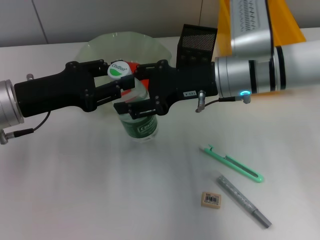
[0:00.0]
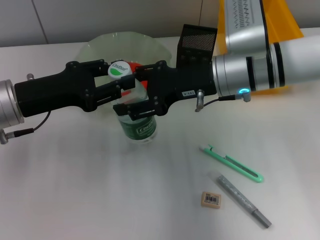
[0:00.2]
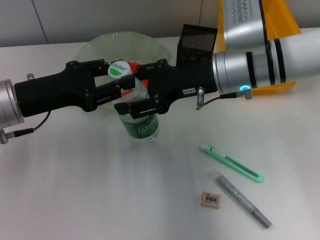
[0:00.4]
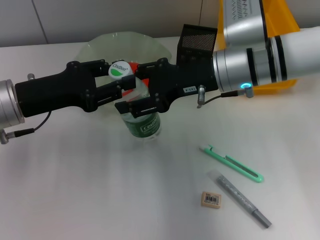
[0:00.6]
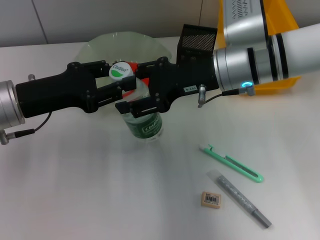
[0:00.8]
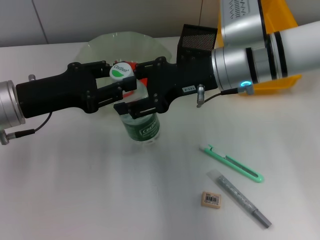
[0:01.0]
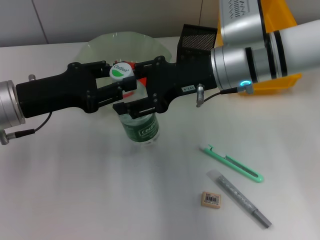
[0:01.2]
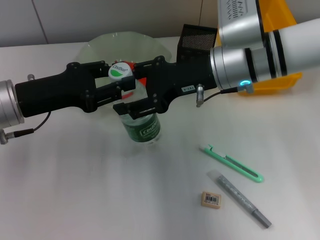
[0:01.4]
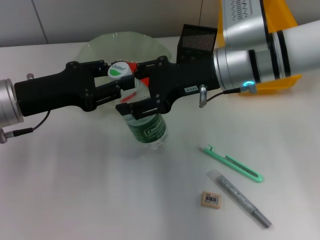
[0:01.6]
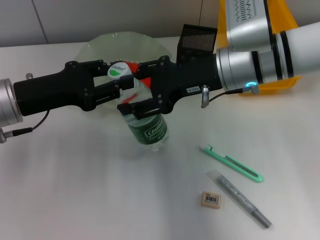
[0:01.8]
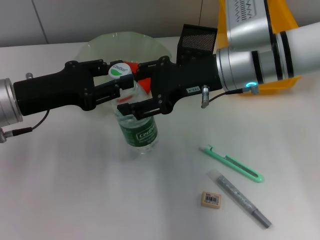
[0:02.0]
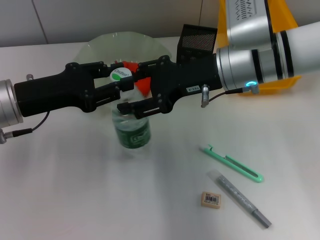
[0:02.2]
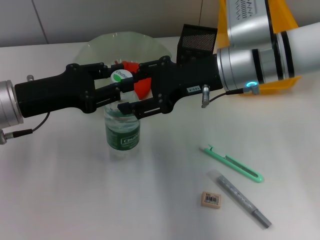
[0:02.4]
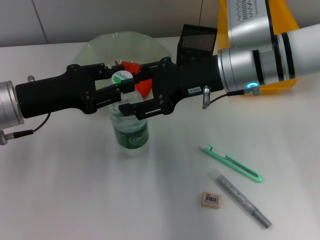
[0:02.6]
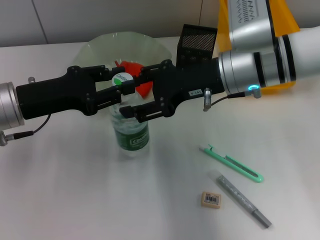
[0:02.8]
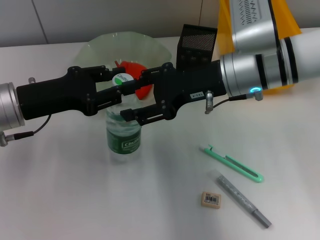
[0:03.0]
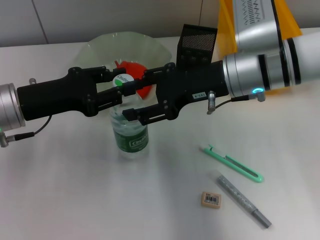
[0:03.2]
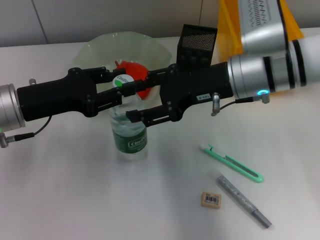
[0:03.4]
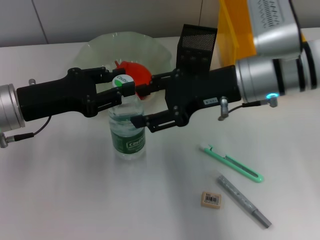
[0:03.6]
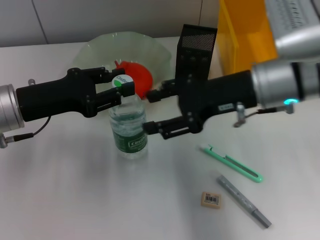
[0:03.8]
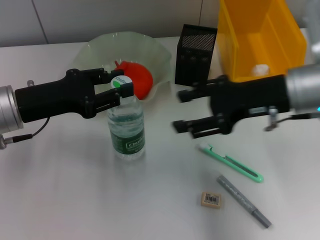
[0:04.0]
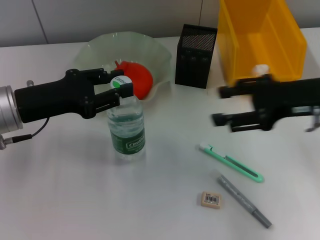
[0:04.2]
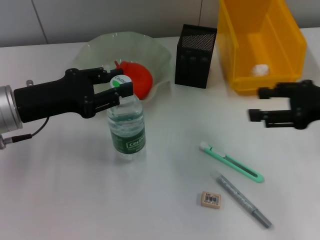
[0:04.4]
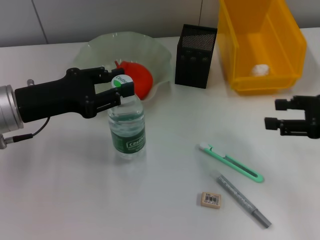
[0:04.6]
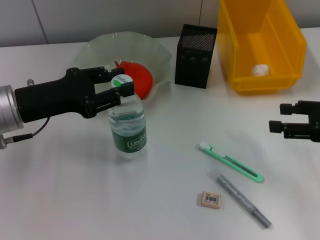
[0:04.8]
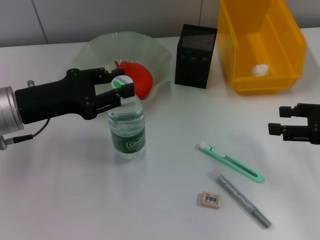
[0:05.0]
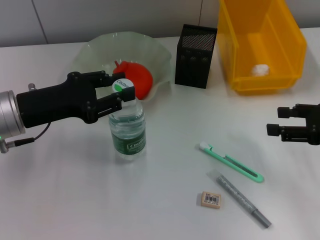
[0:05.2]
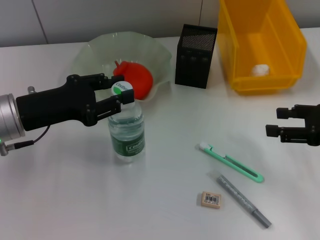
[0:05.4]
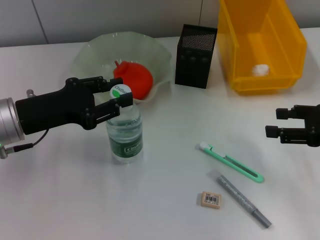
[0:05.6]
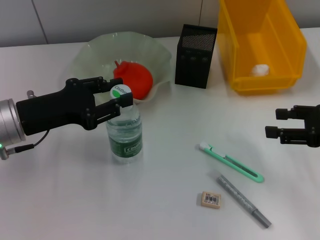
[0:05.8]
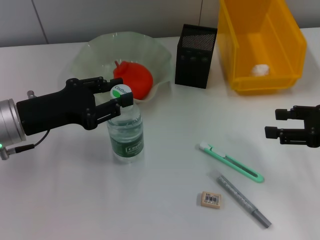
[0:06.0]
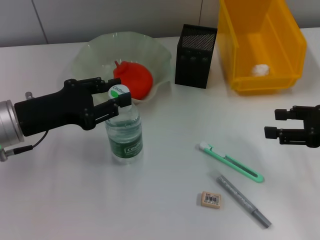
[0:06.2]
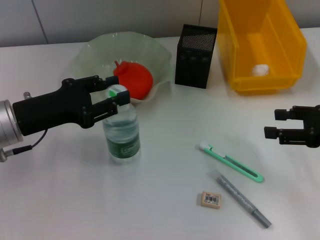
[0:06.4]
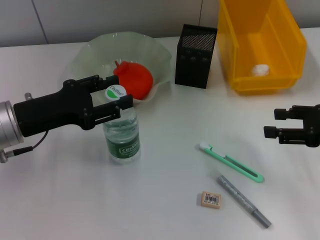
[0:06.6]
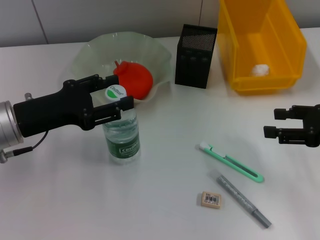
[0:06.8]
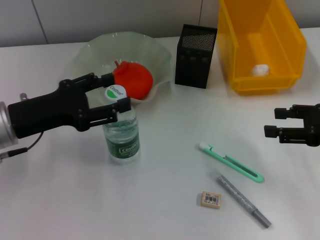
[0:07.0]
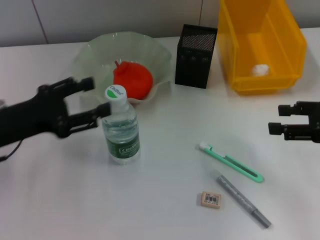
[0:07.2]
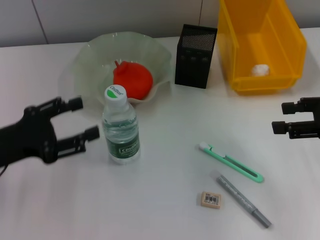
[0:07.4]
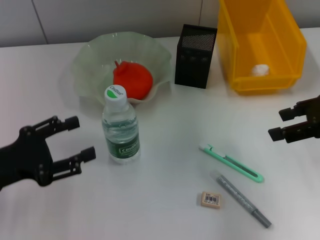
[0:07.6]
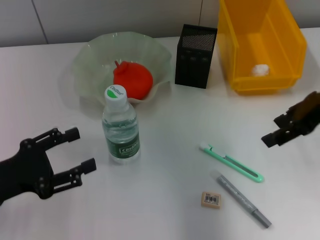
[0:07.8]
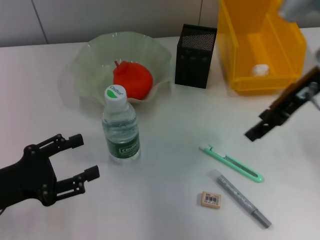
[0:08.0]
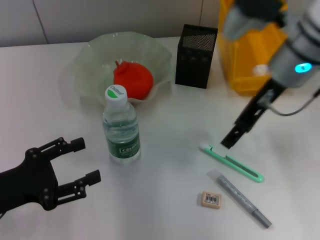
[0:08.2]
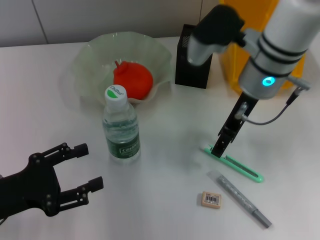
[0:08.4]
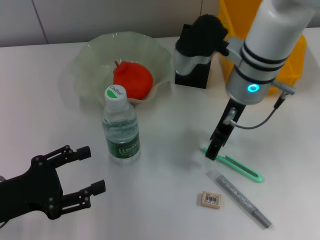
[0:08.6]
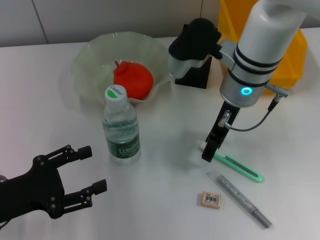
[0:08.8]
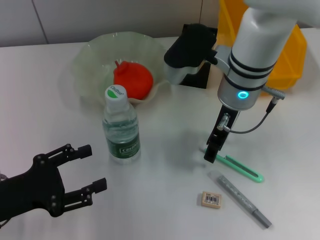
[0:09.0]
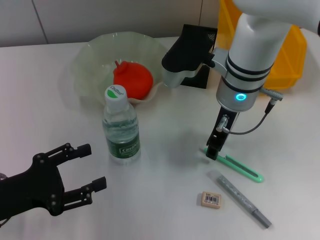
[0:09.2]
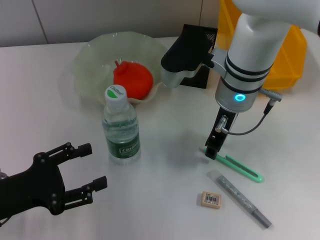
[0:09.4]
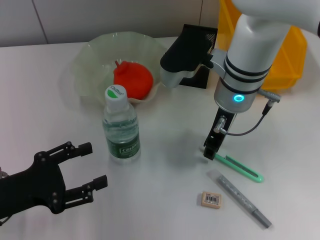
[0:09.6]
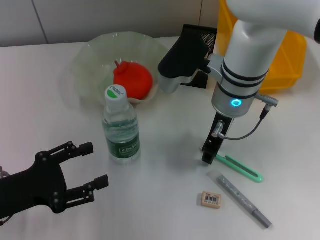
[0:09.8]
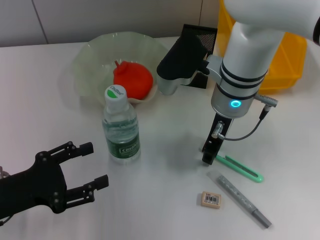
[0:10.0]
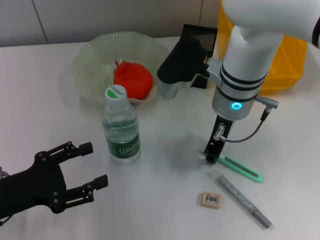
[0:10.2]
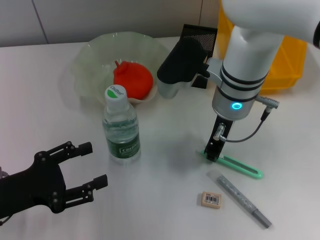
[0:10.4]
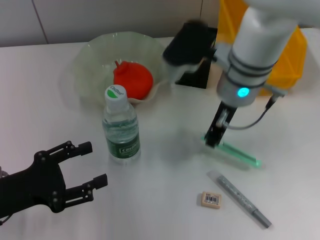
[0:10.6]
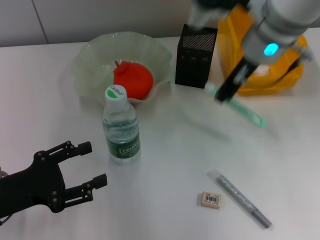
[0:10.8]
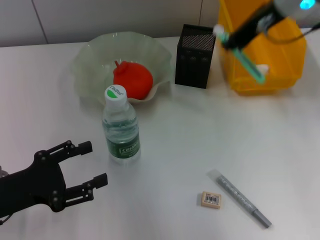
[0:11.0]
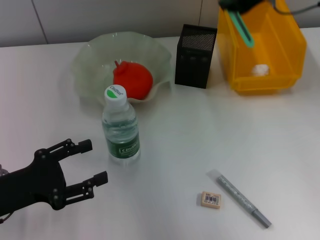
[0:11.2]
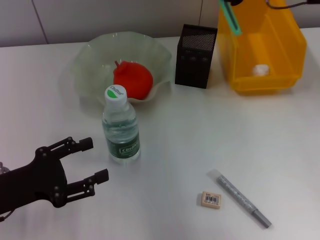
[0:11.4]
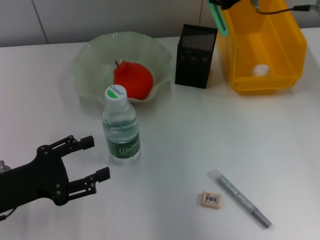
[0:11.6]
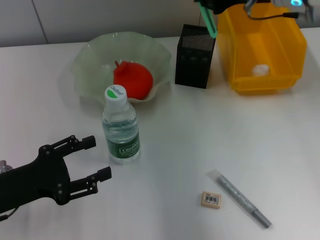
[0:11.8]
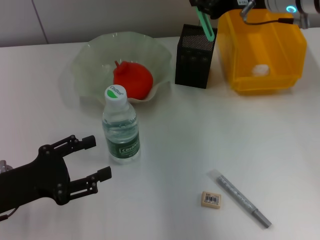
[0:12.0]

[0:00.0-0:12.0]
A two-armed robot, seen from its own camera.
Step, 0.0 to 3.0 s: Pass the water bottle from the right hand to the left hand.
Step, 3.2 to 7.2 s: Place the water bottle on the table with the left hand.
Step, 7.4 to 10.2 s: Grab the blue utility knife with the right hand.
0.0 to 1.6 s: There are only small adjustments of the grippers.
1.6 to 3.0 s: Both grippers stay about where they are.
3.0 to 4.4 s: The right gripper shifts some 20 cm to the right and backward.
4.4 to 6.0 s: The grippers stay close to where they were, moving slightly.
6.0 to 7.6 s: The right gripper travels upward by about 10 cm. The left gripper is displaced backward and to the left by some 10 cm, and opens up.
7.6 to 9.0 s: The right gripper goes some 20 cm to the left and forward.
9.0 to 10.4 s: The right gripper closes up.
10.4 to 12.0 s: The right gripper shifts some 15 cm to the right, upward and forward.

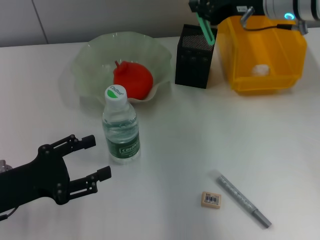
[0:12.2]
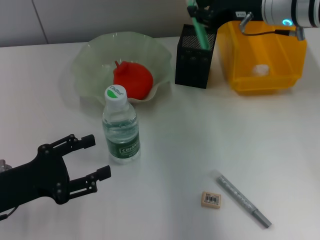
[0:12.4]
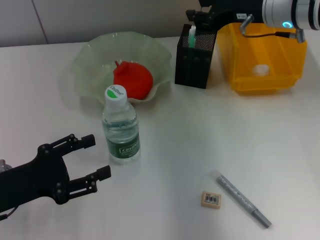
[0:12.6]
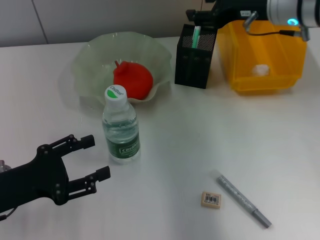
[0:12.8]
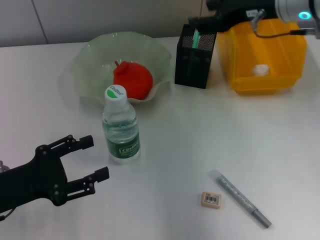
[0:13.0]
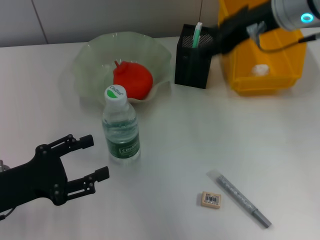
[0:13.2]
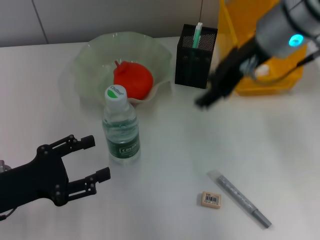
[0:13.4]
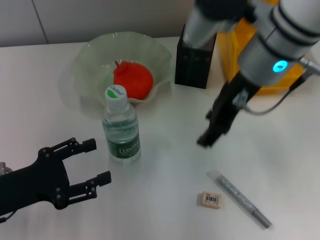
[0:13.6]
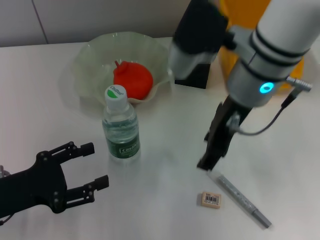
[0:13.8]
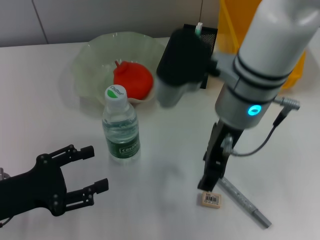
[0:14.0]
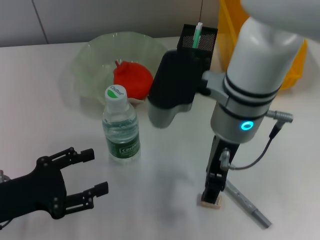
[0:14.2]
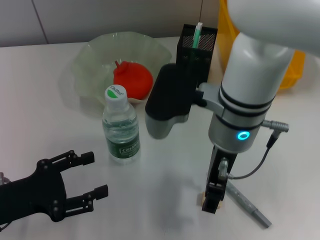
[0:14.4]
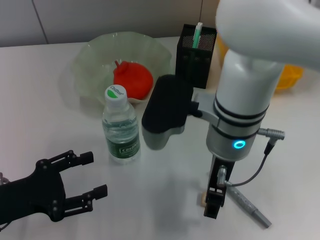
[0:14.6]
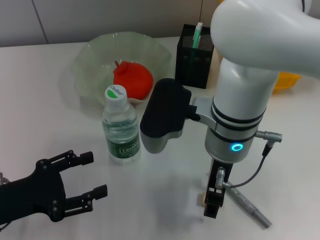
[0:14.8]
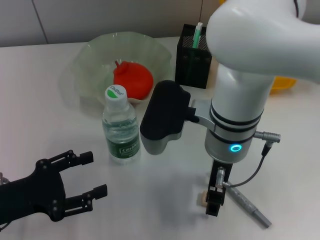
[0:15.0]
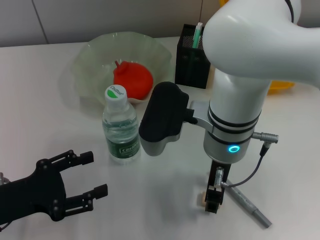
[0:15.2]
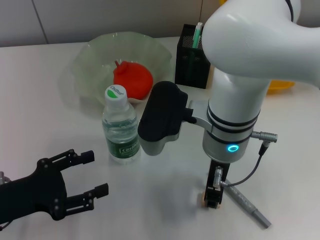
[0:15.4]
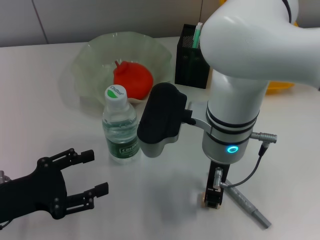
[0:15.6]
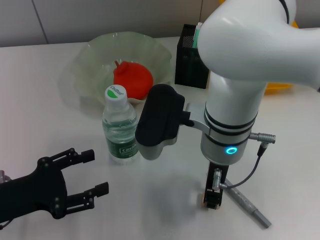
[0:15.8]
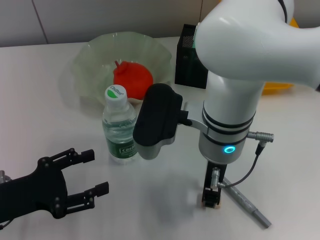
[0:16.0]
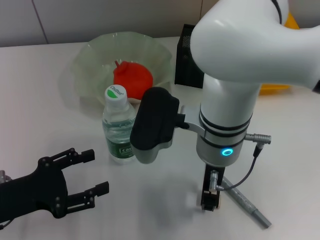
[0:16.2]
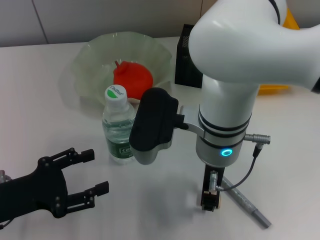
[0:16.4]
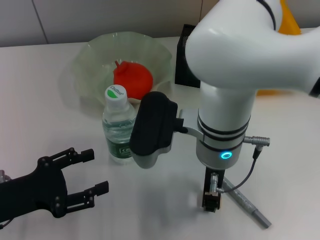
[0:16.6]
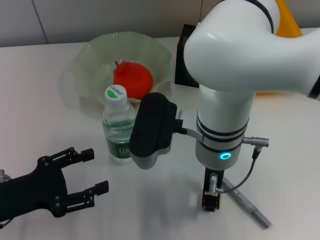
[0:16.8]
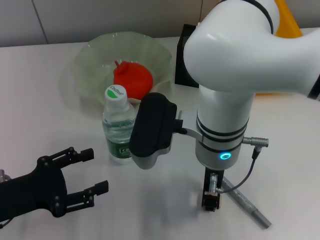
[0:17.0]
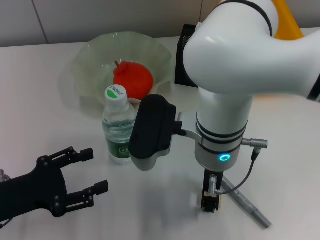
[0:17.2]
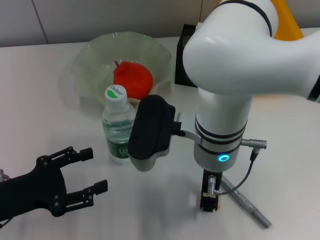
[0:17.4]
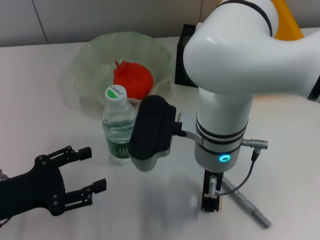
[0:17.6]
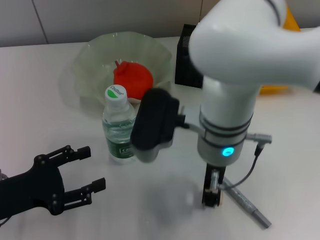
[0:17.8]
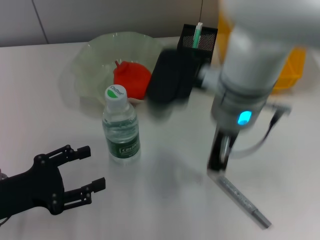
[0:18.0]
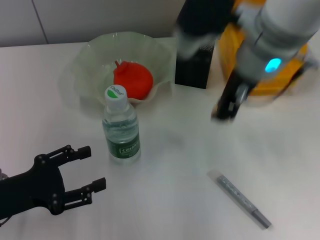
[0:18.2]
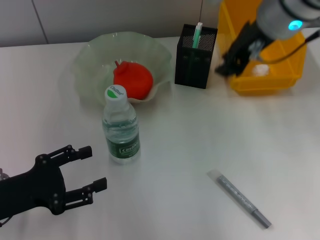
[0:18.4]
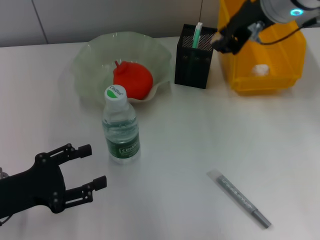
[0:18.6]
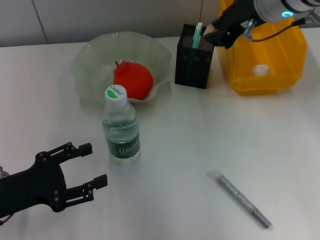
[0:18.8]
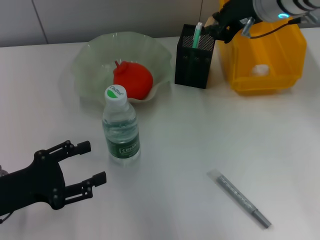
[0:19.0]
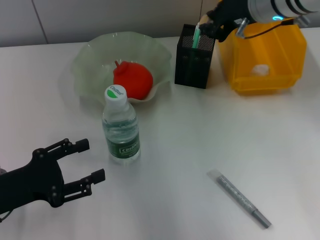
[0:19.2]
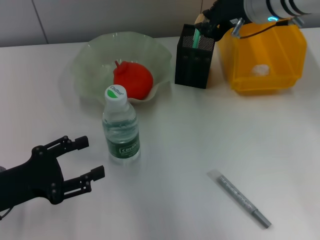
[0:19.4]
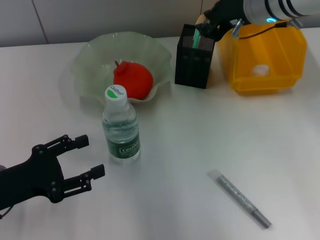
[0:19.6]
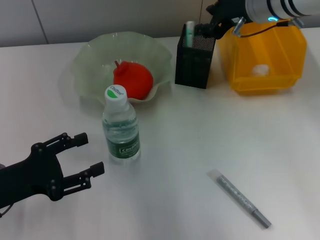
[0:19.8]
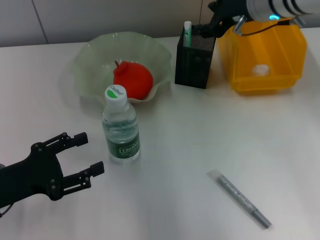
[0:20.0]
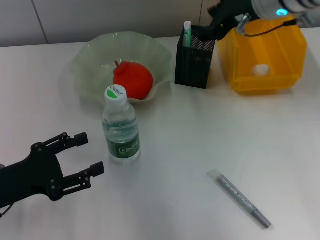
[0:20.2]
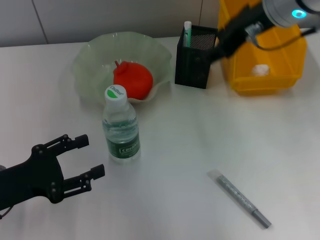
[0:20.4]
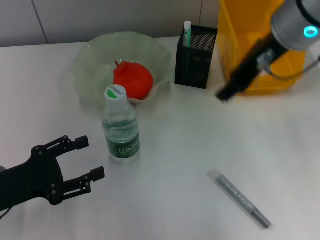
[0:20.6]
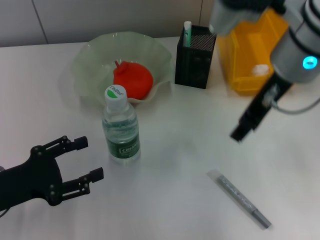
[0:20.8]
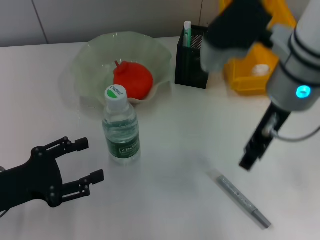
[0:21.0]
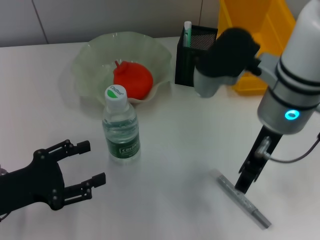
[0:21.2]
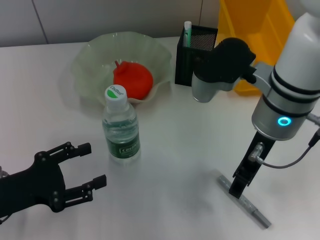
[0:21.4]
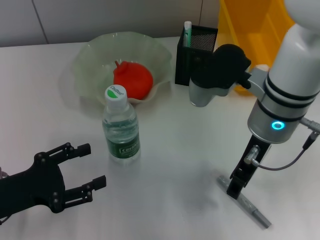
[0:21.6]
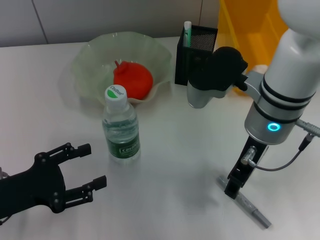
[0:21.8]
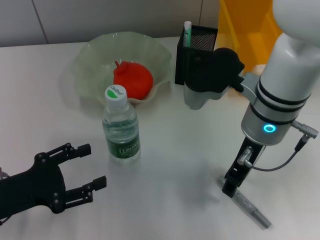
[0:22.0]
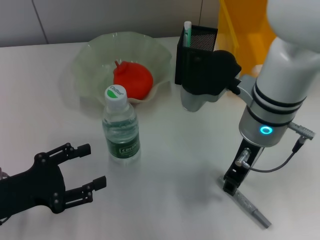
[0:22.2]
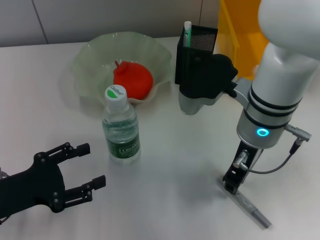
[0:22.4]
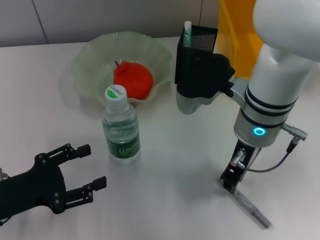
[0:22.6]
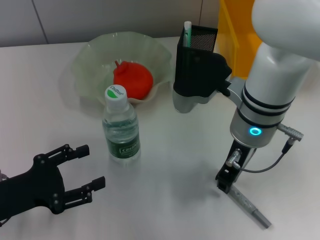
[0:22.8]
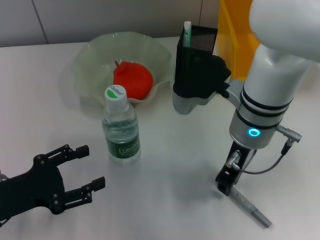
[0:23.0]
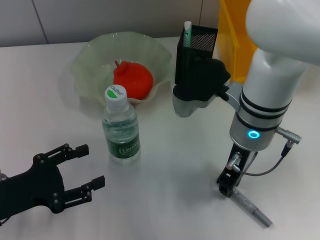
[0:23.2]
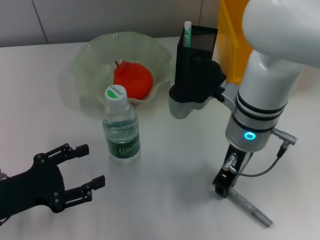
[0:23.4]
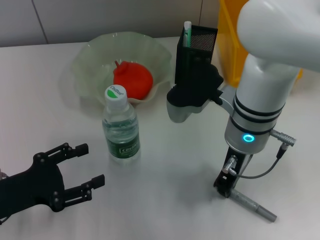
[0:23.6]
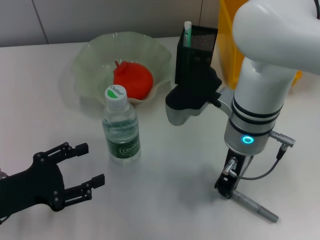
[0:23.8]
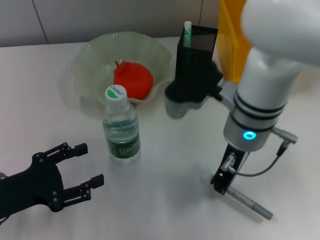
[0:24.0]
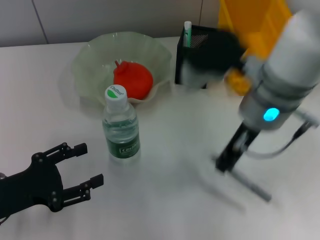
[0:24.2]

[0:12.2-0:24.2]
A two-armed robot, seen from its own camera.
Step, 13.0 to 17.4 s: Grab the eraser with the right hand.
Step, 17.6 to 20.0 s: Put the eraser into the pen holder with the right hand.
Step, 20.2 to 23.4 s: Grab the gray glue with the right hand.
12.2 to 13.8 s: The right gripper moves to the left and backward, roughly 15 cm, and opens.
13.8 to 15.2 s: The right gripper goes roughly 5 cm downward.
15.2 to 16.6 s: The right gripper closes its fingers.
16.6 to 18.2 s: The right gripper shifts some 10 cm upward, to the right and forward.
18.2 to 19.8 s: The right gripper heads forward and to the right, covering about 10 cm.
19.8 to 21.2 s: The right gripper moves backward, approximately 15 cm, and opens.
21.2 to 22.6 s: The right gripper heads downward, covering roughly 5 cm, and closes its fingers.
22.6 to 24.2 s: The grippers stay close to where they were, moving slightly.
